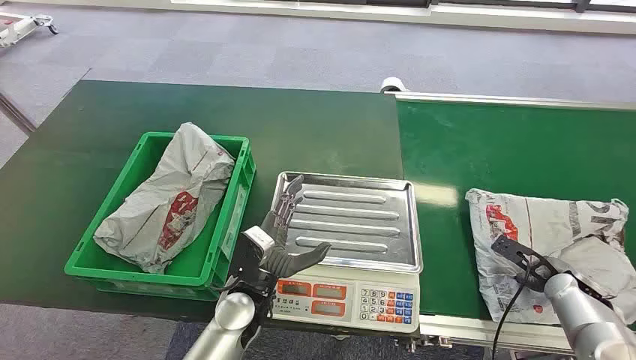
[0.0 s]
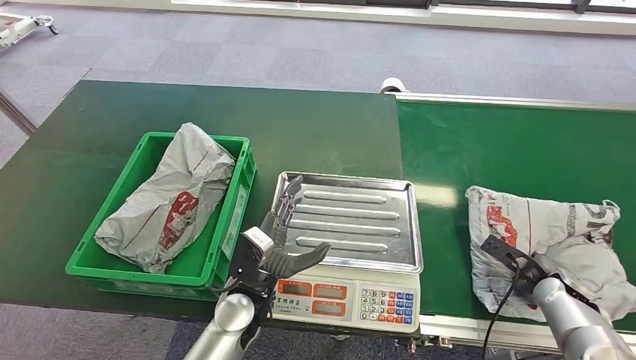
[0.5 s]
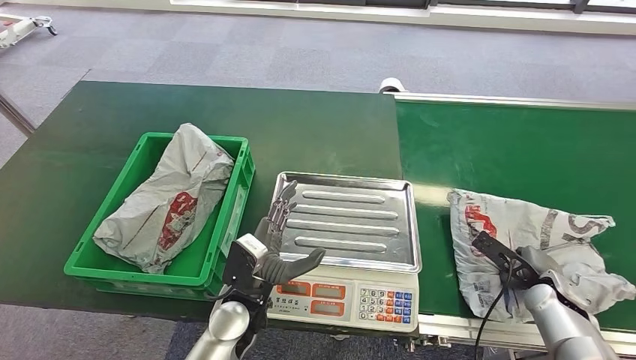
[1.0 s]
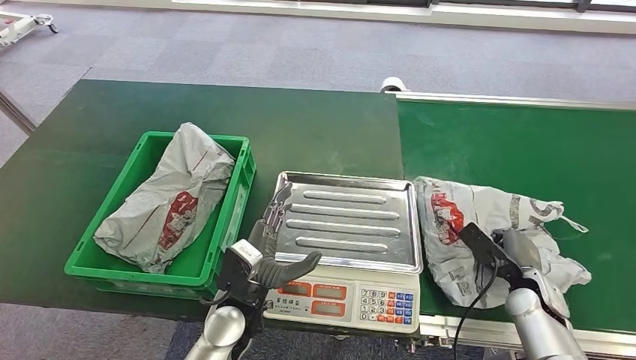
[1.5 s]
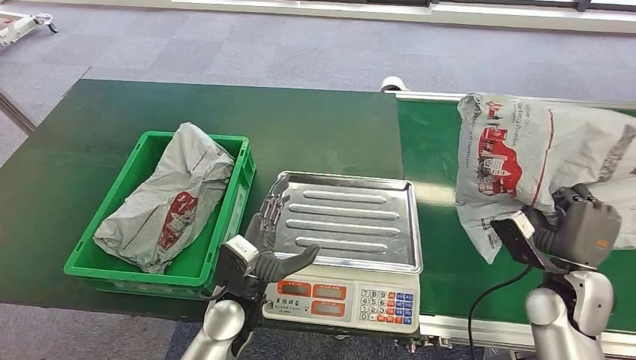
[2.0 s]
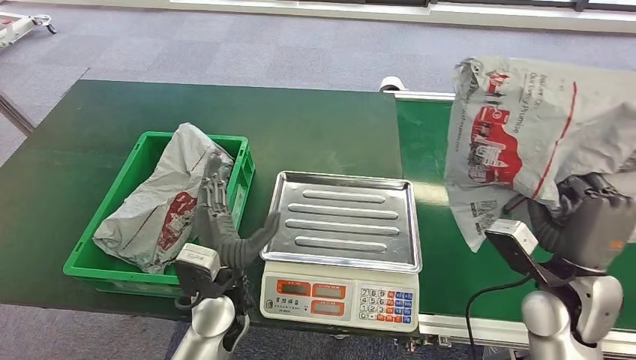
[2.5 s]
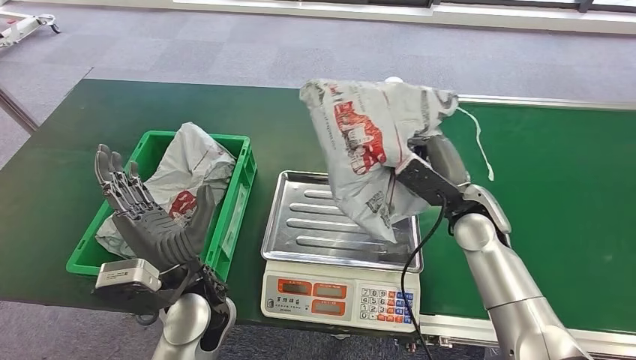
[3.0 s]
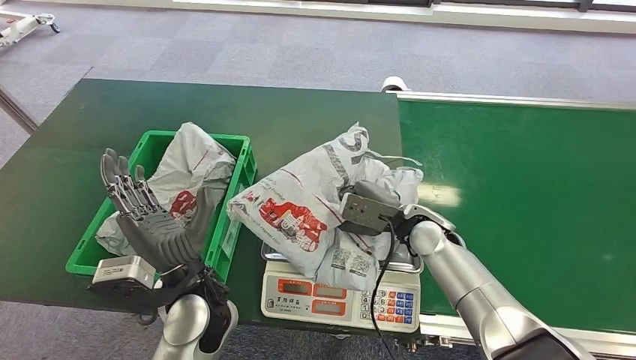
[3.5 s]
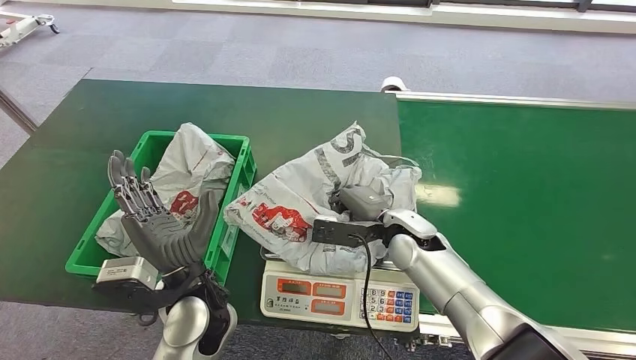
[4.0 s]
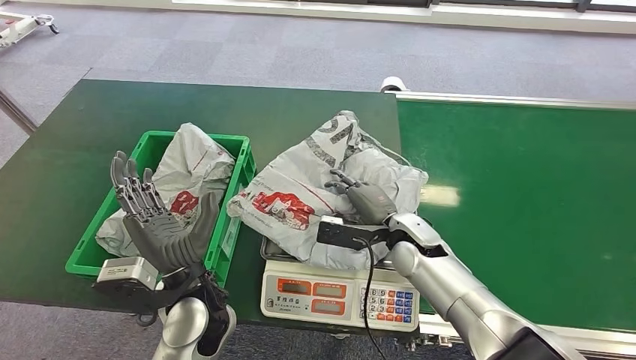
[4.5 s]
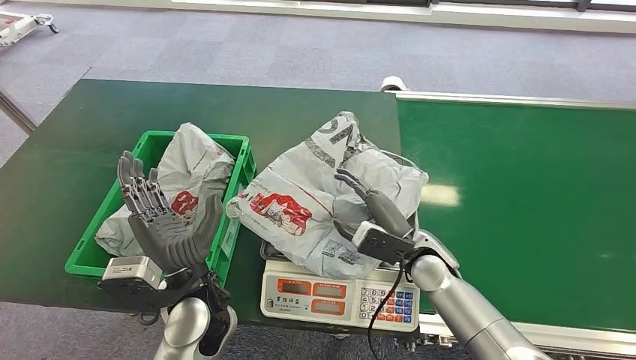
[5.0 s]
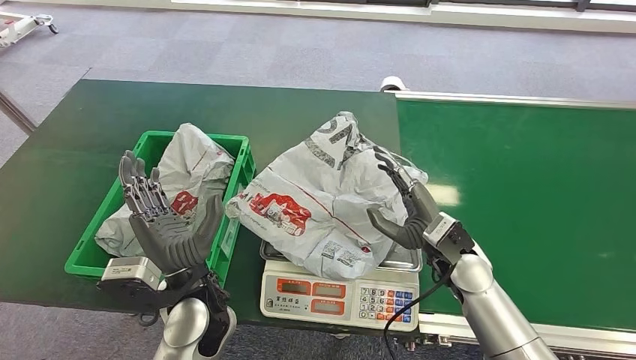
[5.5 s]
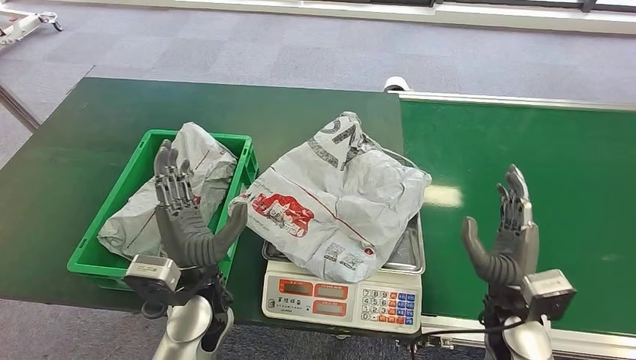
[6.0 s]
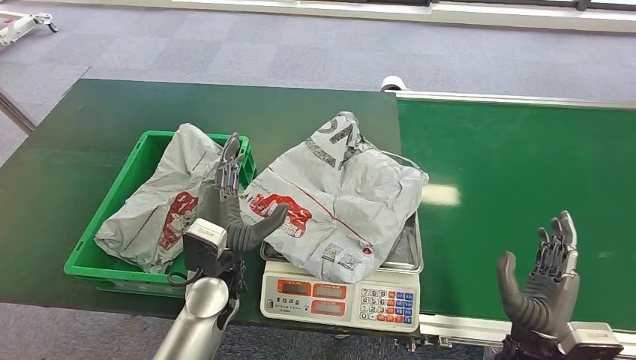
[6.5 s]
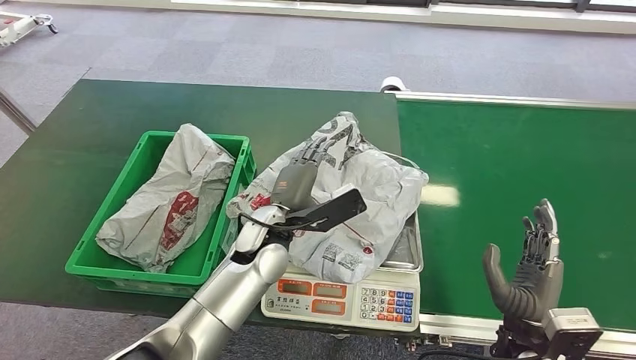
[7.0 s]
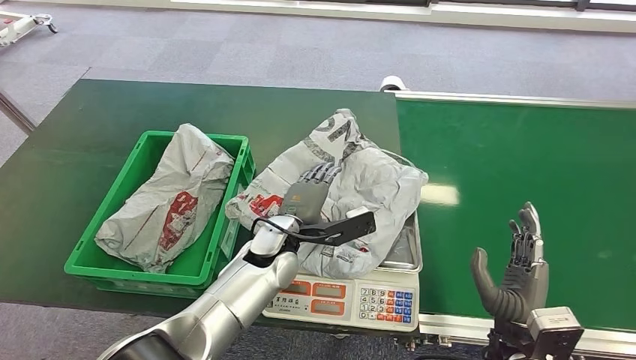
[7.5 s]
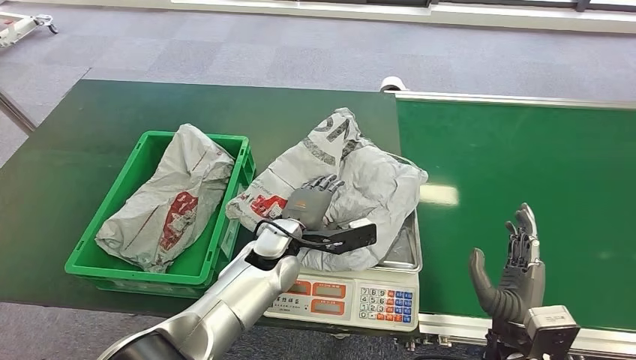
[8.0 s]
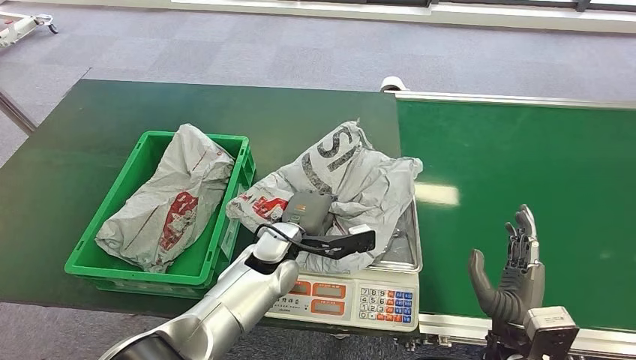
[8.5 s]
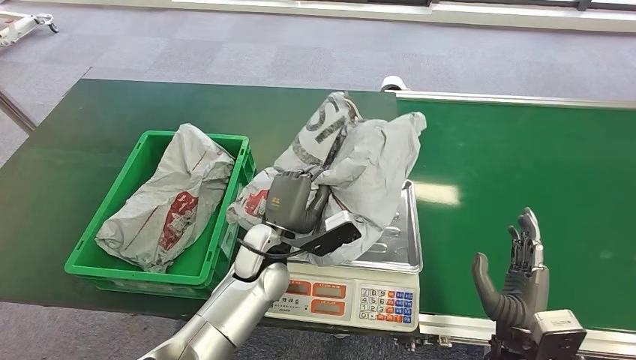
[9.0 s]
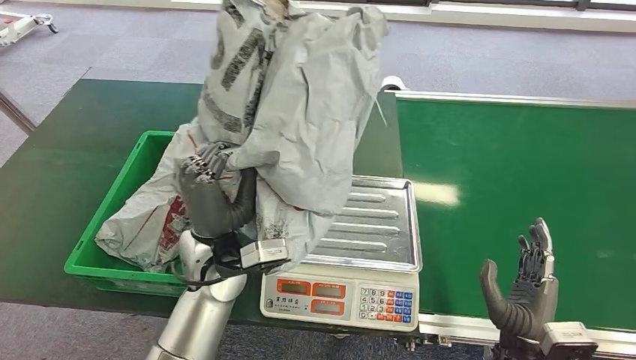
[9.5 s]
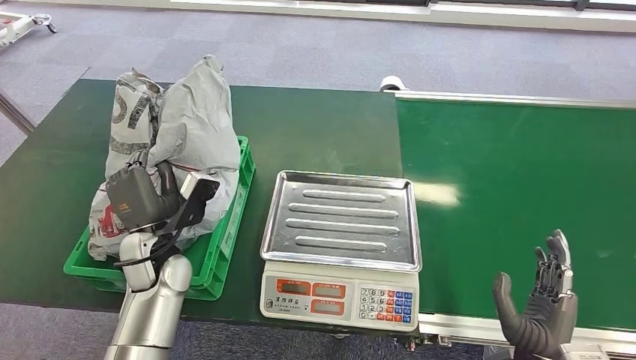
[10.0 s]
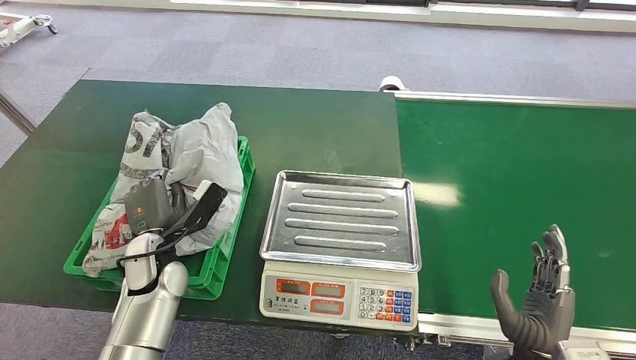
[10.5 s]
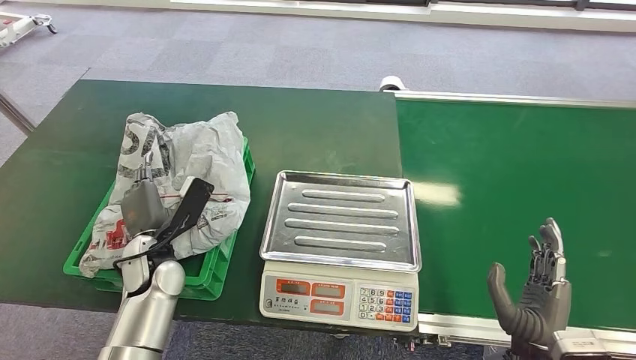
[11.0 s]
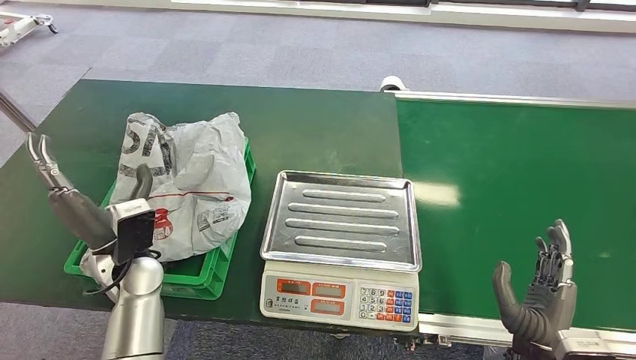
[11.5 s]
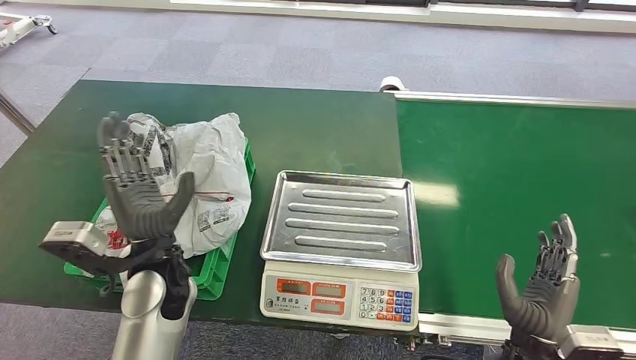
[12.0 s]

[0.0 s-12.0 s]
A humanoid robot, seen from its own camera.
Task of the whole recording: Weigh the package on the weighing device and place it in the left basket.
Step, 0.0 to 2.0 s: Pick up the package from the conveyor belt.
Step, 2.5 to 5.5 s: Place the package onto the inbound machine.
Step, 6.0 to 10.0 s: Pick up the package from the inbound machine.
Step, 10.5 to 12.0 s: Place the package into the parcel locker.
10.0 to 12.0 s: The left hand ends up approximately 5 cm from where it was.
